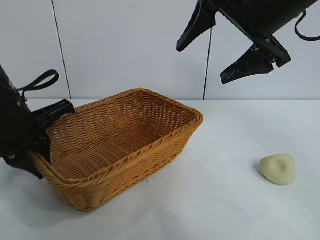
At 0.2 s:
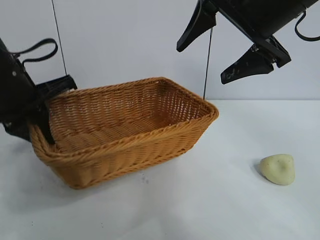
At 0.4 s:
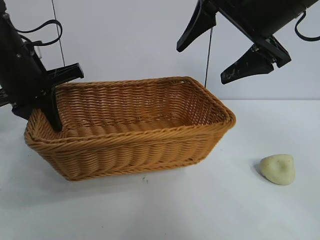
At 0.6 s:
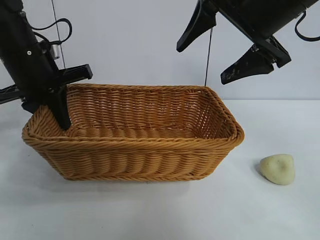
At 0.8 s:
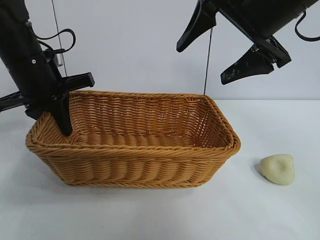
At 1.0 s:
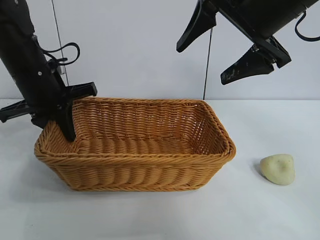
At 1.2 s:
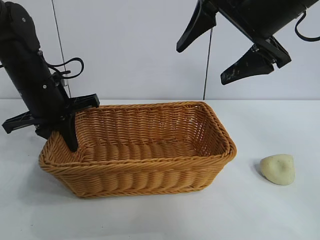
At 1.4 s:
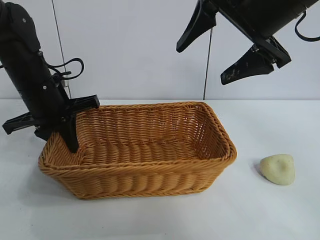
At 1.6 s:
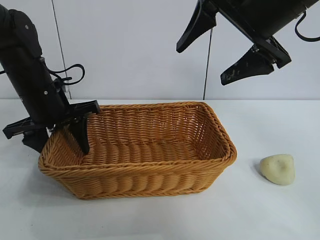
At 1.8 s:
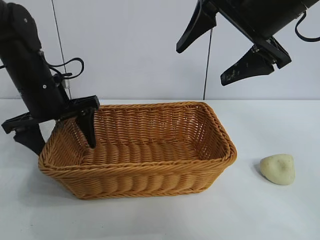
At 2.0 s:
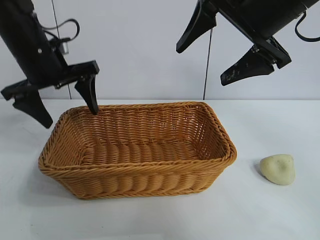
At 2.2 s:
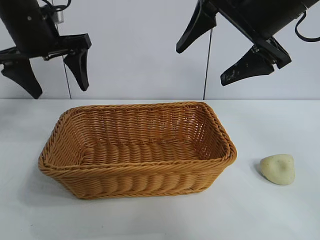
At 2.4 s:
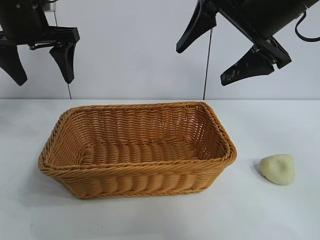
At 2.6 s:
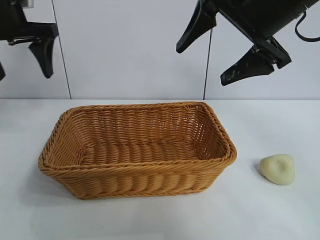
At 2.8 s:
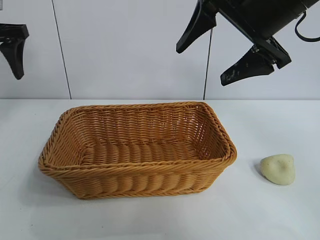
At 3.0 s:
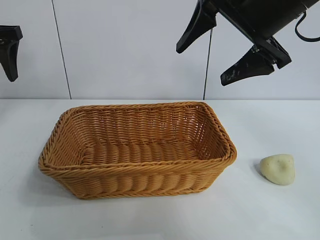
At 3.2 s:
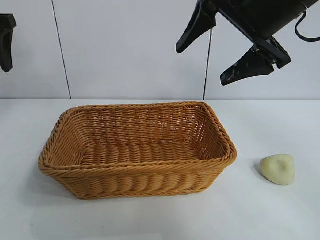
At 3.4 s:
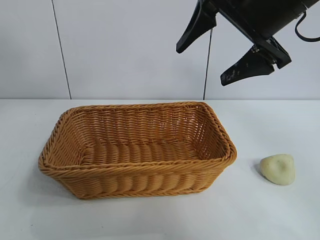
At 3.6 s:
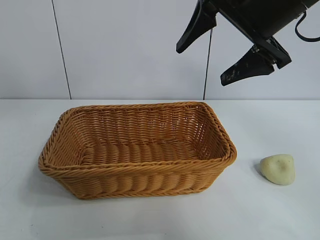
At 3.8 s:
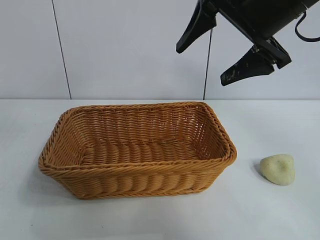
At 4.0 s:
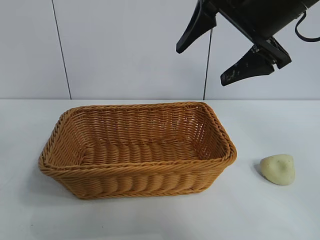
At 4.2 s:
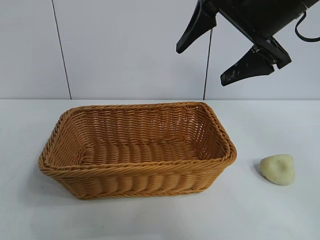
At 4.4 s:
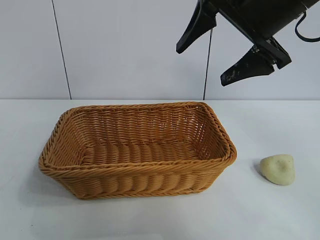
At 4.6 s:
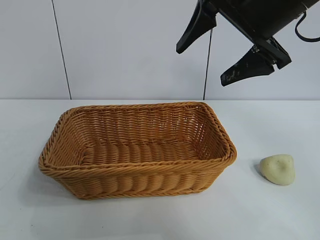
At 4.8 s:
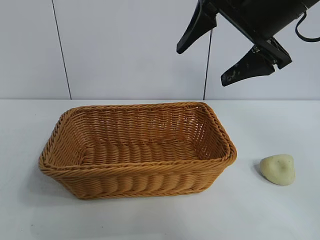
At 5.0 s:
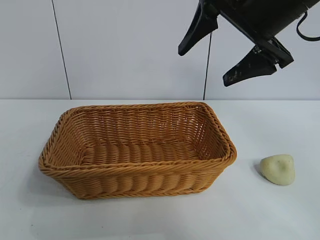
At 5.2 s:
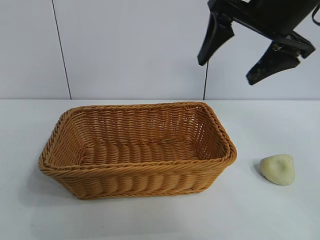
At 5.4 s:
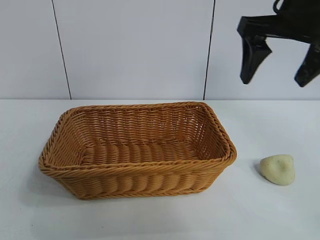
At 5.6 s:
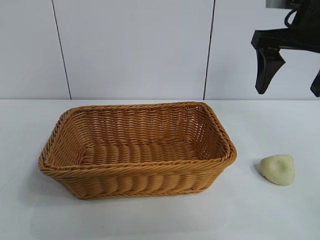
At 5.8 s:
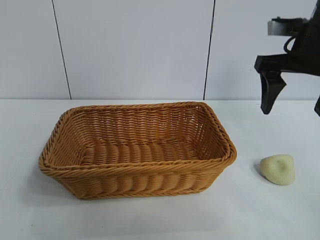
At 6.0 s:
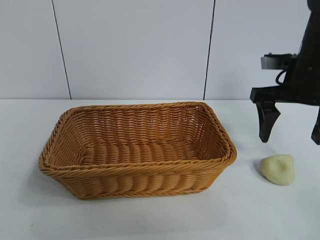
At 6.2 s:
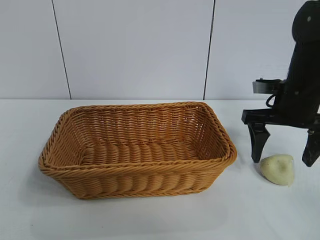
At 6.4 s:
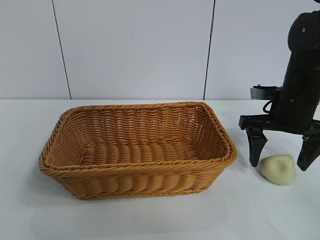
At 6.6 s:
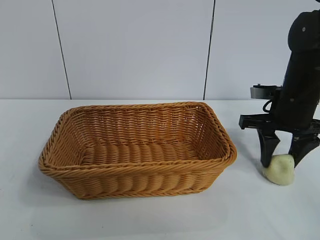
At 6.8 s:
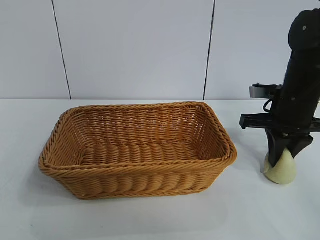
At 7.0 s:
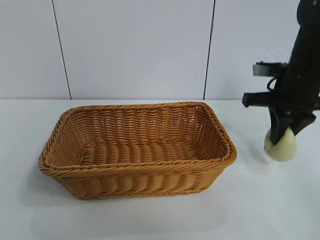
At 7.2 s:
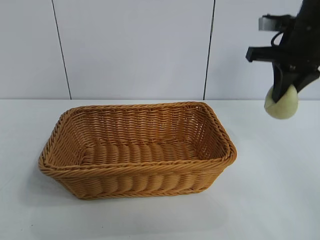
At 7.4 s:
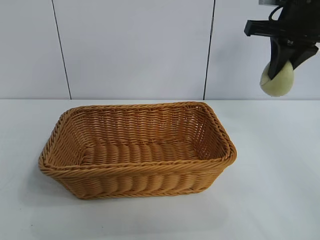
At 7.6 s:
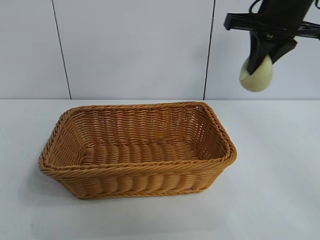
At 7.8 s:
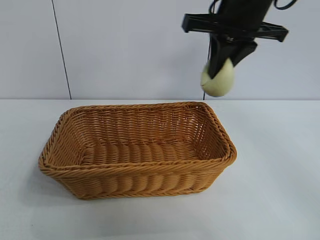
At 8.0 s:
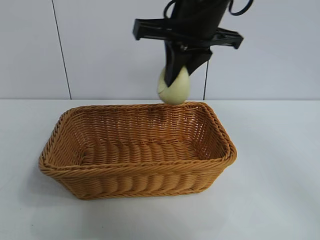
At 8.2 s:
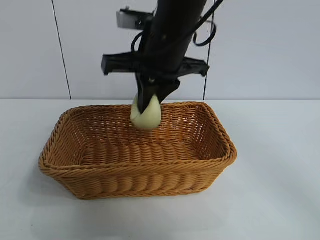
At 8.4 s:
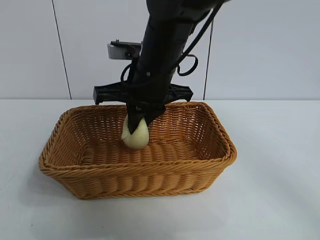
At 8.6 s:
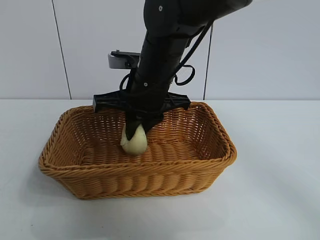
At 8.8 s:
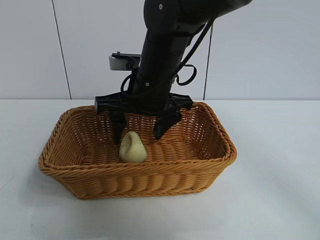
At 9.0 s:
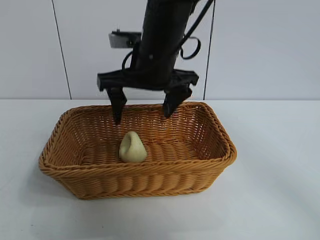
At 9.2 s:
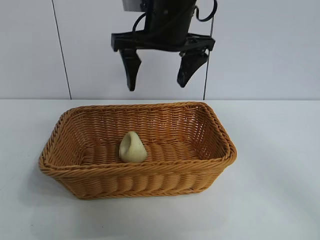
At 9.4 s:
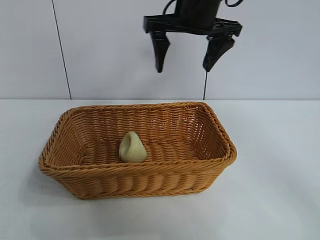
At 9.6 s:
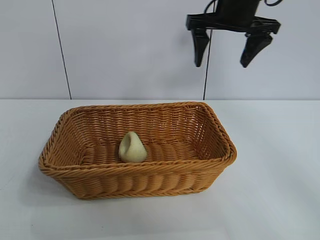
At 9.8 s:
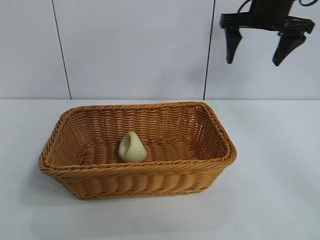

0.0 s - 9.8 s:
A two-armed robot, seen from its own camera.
Task of the whole recording: pick up the egg yolk pastry and put it into the basket.
Step, 0.0 s - 1.6 s: Place the basket in the center of view with left gripper.
Step, 1.8 s - 6.6 s: Grasp egg yolk pastry with right gripper.
Step, 7.0 s - 8.8 s: Place the egg yolk pastry in the basket with right gripper.

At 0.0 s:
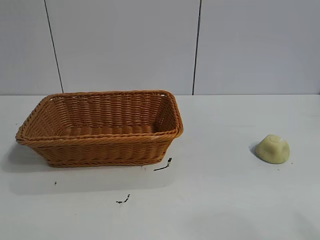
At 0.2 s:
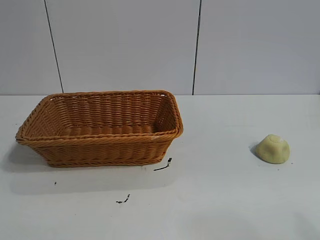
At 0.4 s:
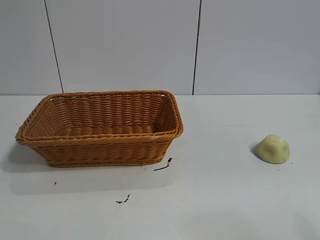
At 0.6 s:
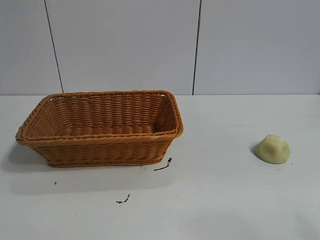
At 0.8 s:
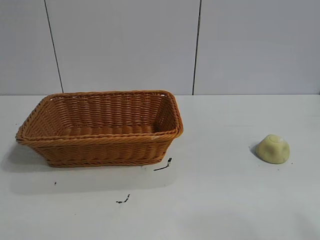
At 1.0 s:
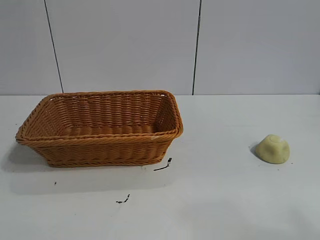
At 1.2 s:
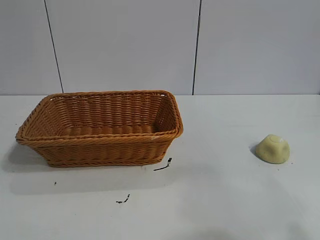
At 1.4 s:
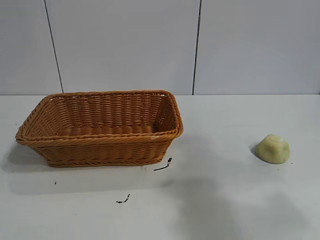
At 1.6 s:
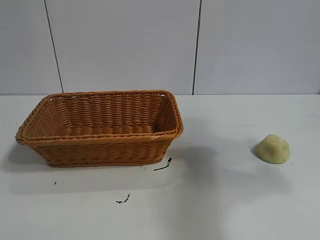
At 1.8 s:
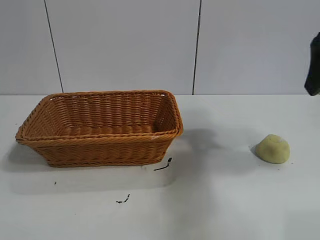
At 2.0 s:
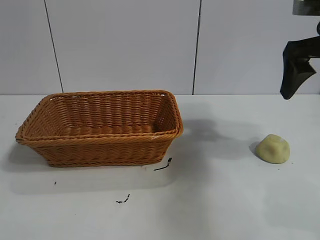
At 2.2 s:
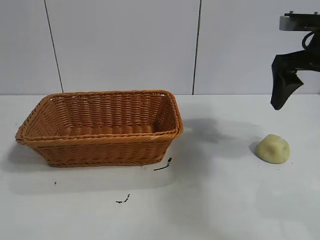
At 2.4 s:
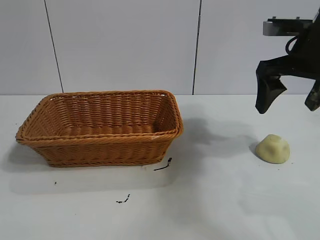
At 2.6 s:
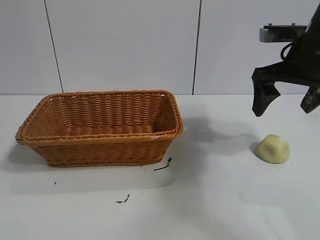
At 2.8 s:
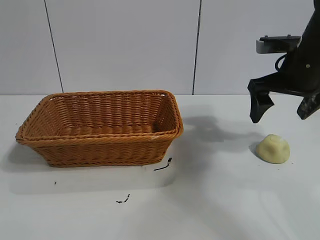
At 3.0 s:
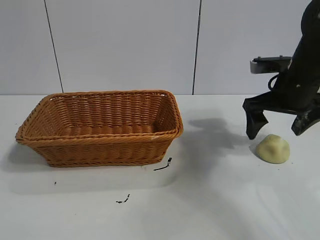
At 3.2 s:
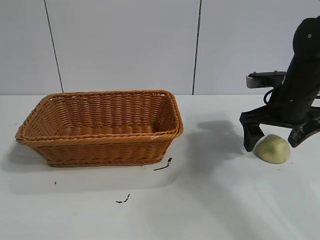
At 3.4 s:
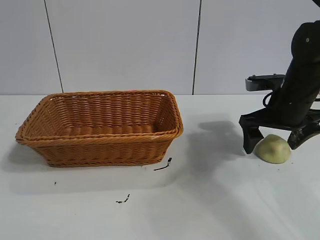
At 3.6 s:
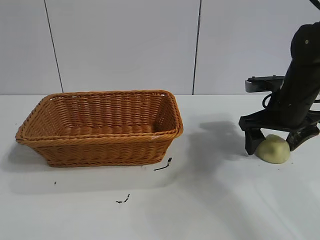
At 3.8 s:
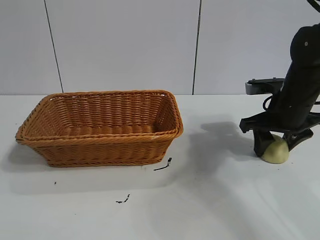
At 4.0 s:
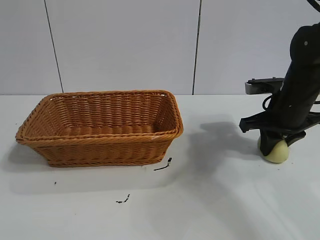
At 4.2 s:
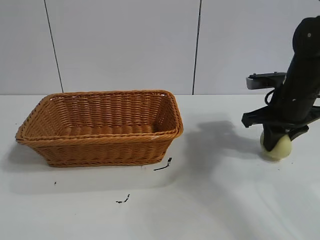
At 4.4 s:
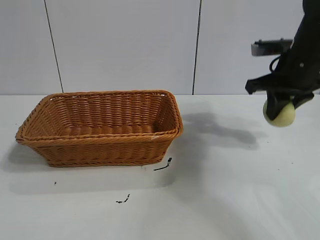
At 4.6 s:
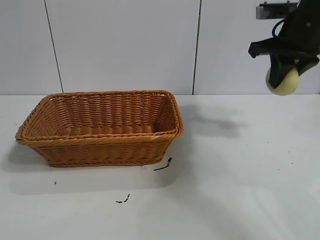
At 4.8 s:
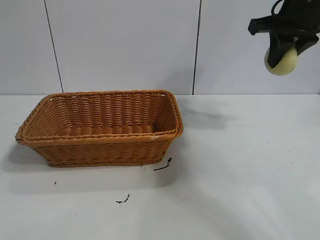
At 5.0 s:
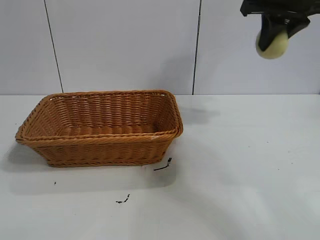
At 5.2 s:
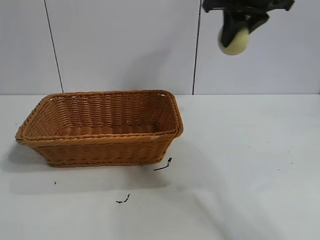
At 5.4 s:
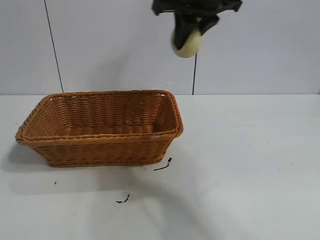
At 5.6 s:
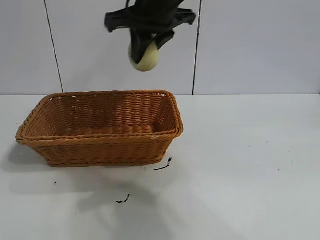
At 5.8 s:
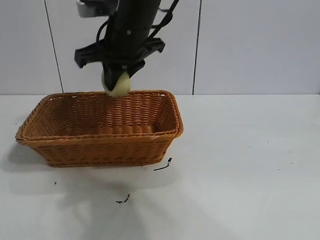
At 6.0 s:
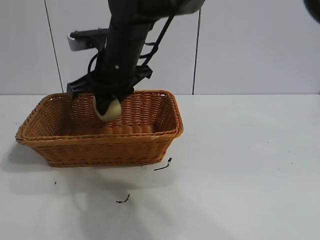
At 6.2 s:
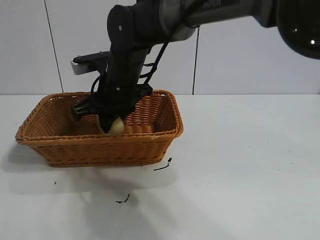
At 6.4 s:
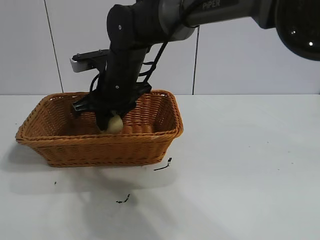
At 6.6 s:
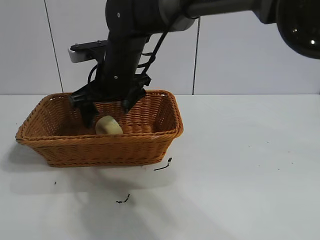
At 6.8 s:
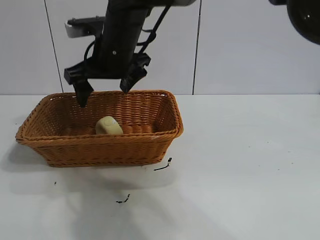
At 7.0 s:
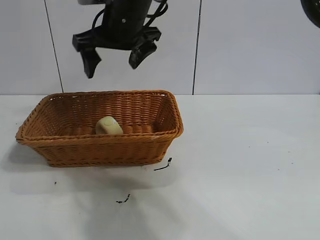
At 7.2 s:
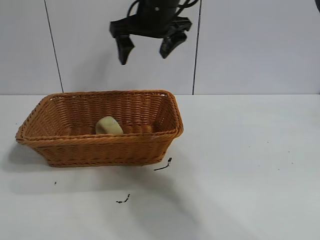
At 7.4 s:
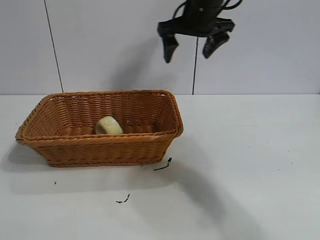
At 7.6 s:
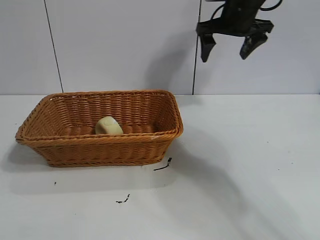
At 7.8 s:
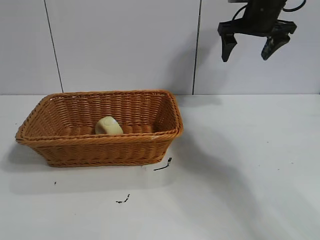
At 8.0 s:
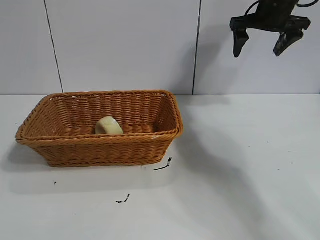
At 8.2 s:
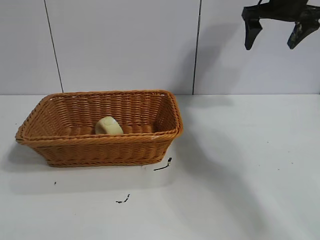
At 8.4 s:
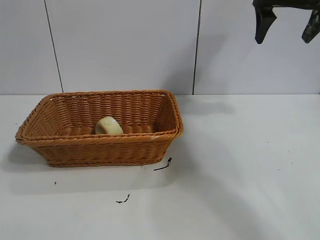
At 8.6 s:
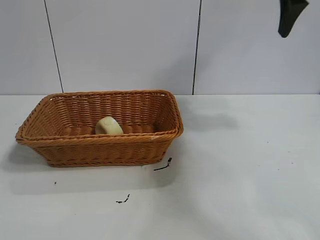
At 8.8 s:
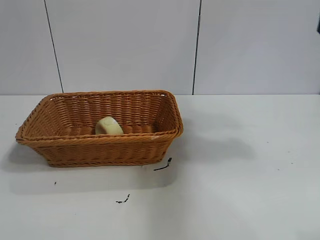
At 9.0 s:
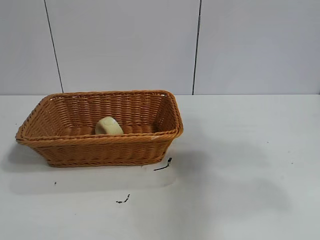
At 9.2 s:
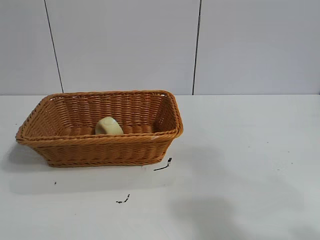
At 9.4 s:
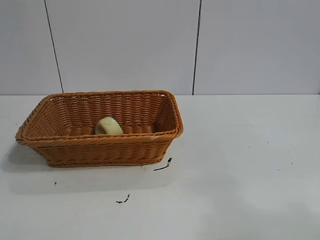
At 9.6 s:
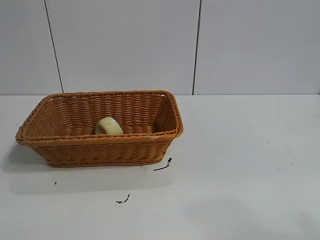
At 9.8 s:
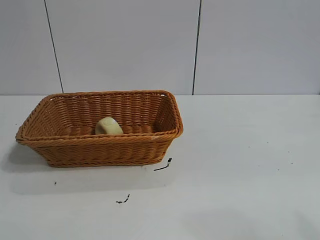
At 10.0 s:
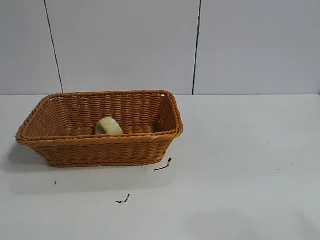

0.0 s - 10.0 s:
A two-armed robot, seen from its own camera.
Task of the whole recording: pick up the egg yolk pastry and put it into the basket.
Step, 1.0 s - 3.8 s: Grasp egg yolk pastry with right gripper.
Step, 4.2 s - 6.4 s: Place the egg yolk pastry in the basket with right gripper.
